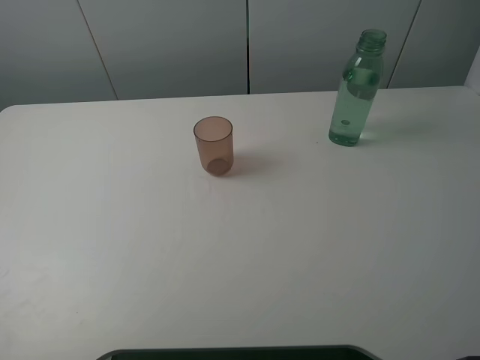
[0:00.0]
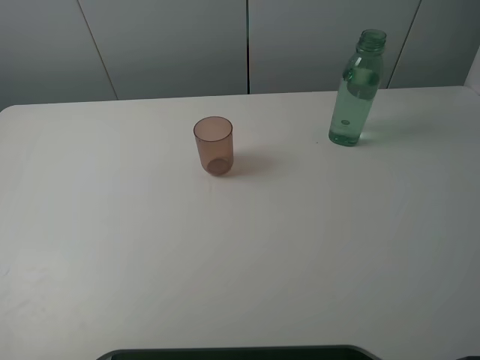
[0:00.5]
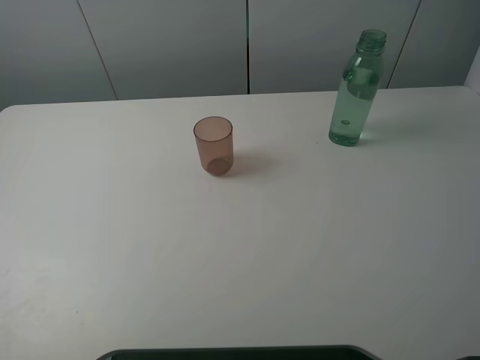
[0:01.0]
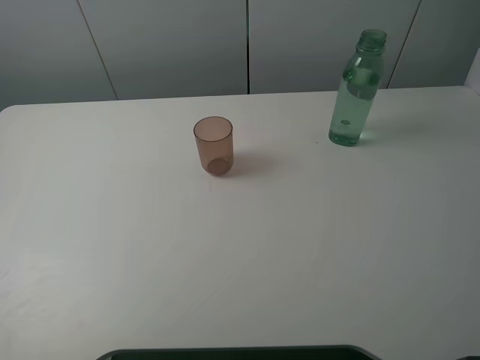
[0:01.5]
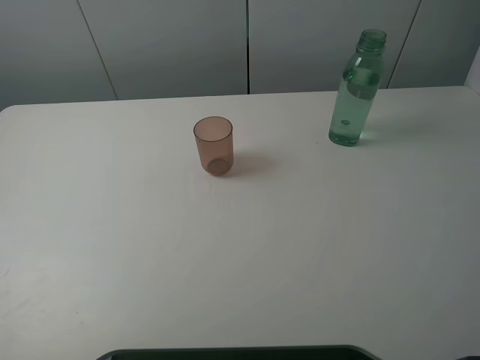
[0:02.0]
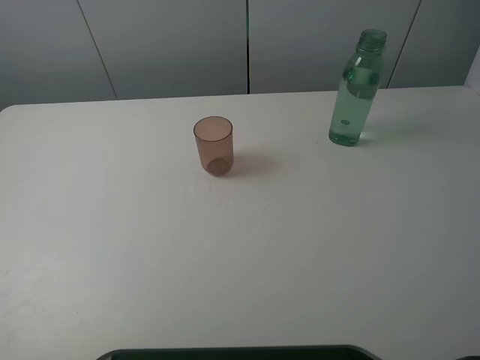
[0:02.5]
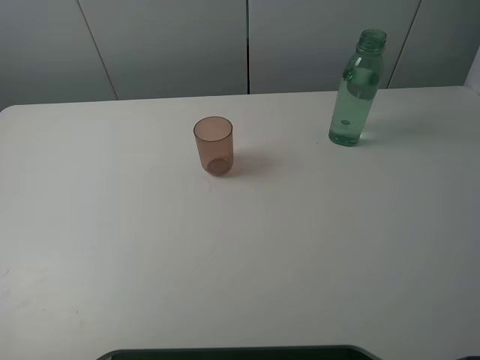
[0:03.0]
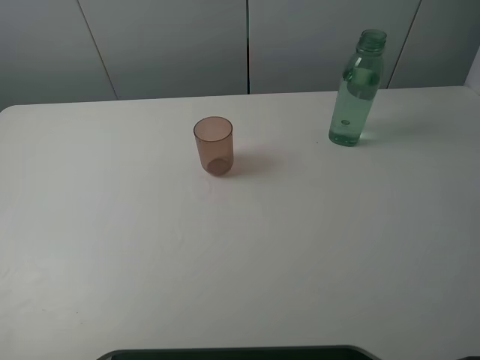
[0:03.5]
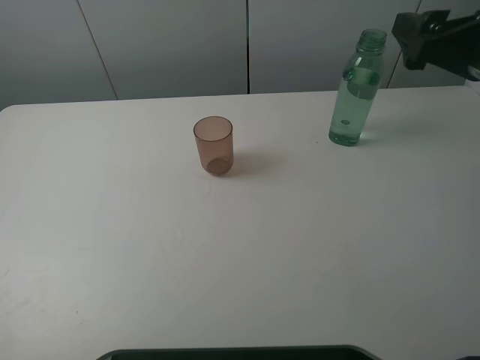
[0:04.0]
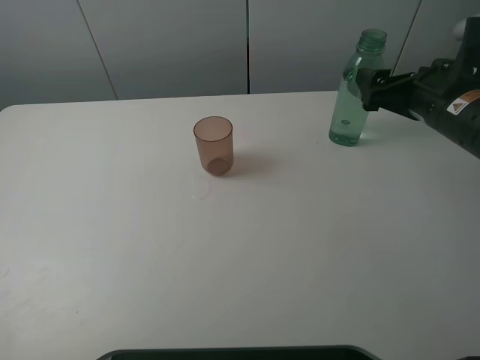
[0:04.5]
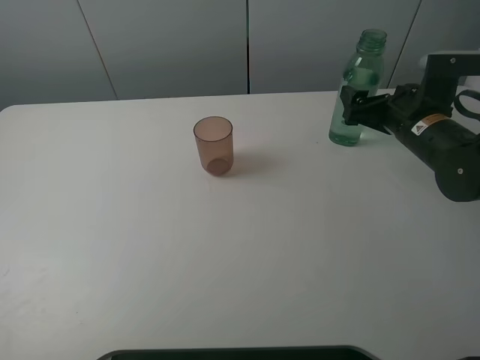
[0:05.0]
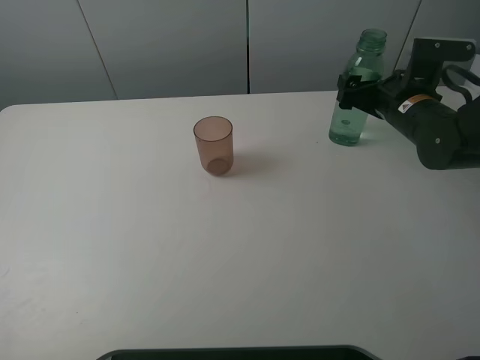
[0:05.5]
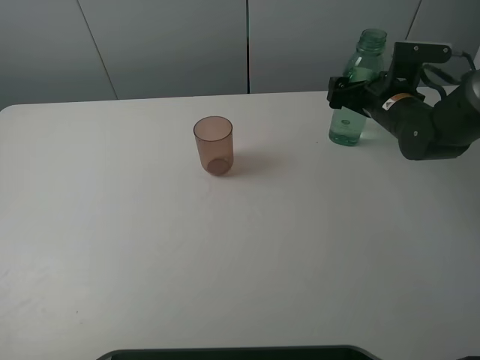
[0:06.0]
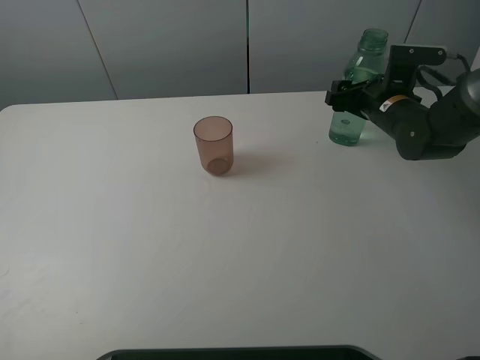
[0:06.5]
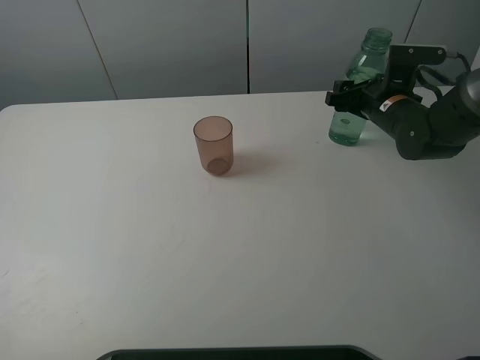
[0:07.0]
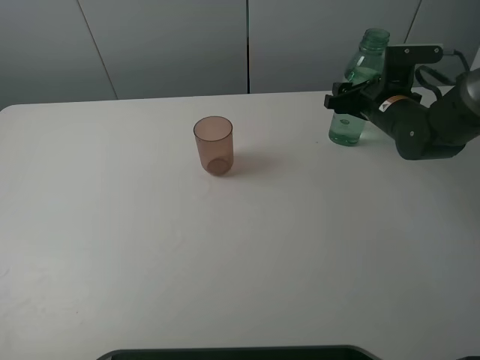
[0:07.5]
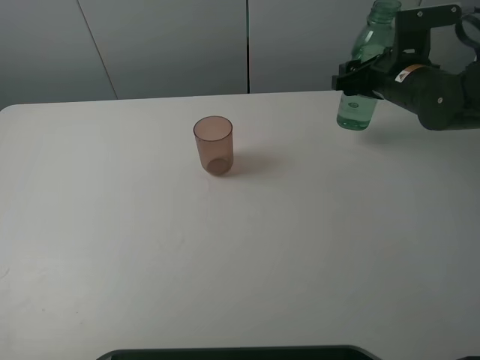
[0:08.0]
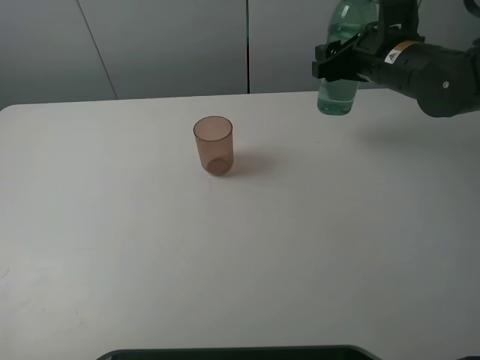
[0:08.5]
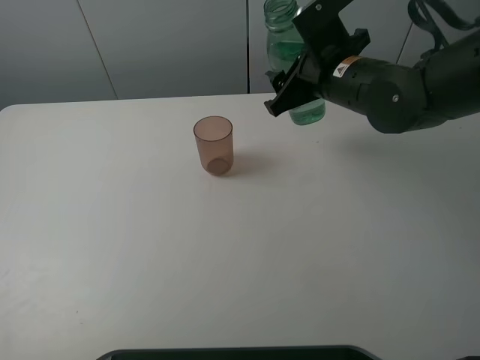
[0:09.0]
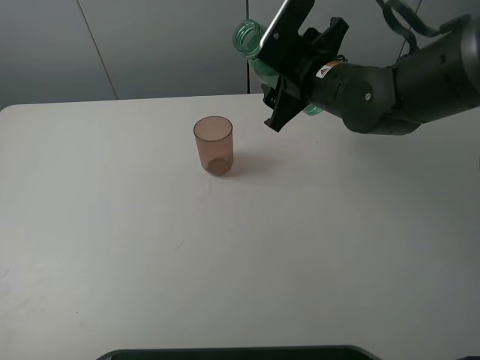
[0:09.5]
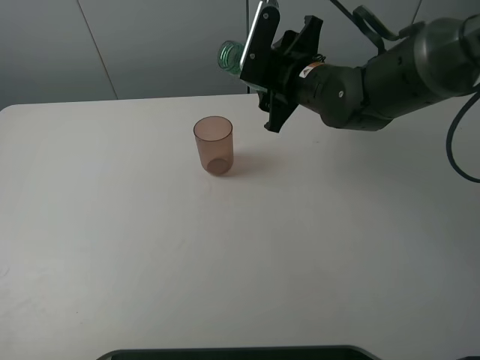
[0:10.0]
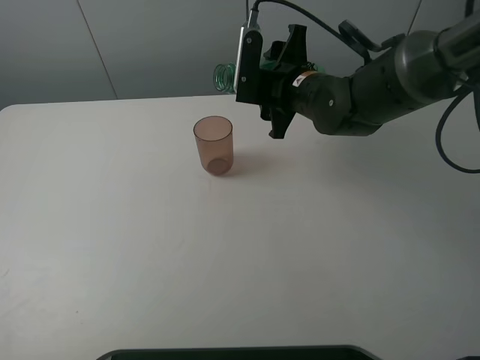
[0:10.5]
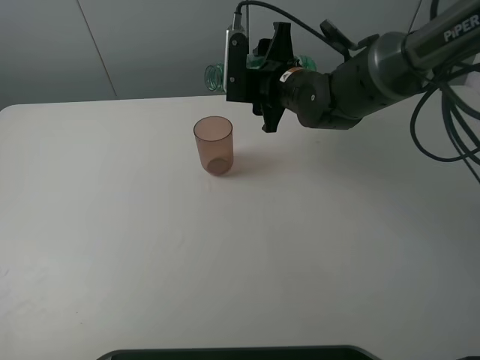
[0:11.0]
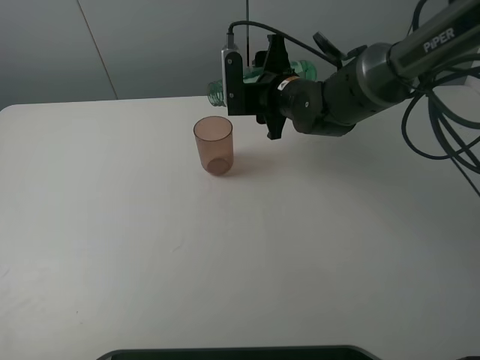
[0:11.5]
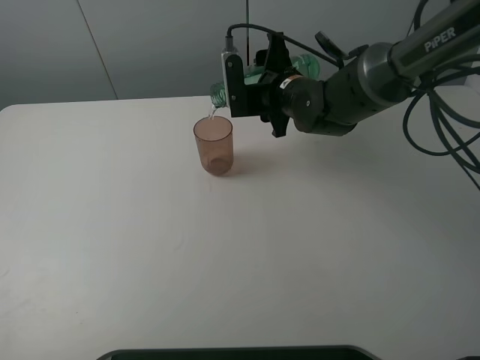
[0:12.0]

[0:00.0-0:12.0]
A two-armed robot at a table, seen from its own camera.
Task of the whole recording: pick up the bottle filled with water and pour it into the pink cup.
Step, 0:00.0 to 0:06.5: Grasp the green bottle with the right gripper.
0:00.0 to 0:02.0: Both grippers stay put.
0:02.0 to 0:04.0: The right gripper moves forward, about 25 cm.
0:04.0 to 0:06.0: The right gripper travels downward and forward by approximately 20 cm.
0:06.0 to 0:08.0: The right gripper travels upward by roughly 5 cm, and closes up.
0:08.0 to 0:10.0: The right gripper heads to the left, covering some 15 cm.

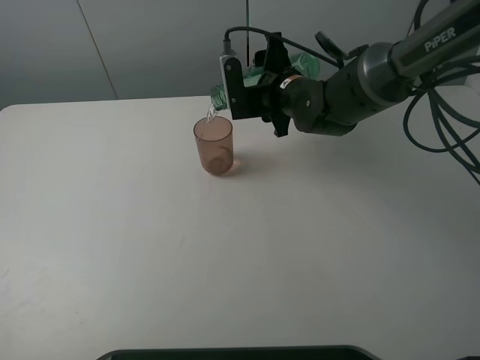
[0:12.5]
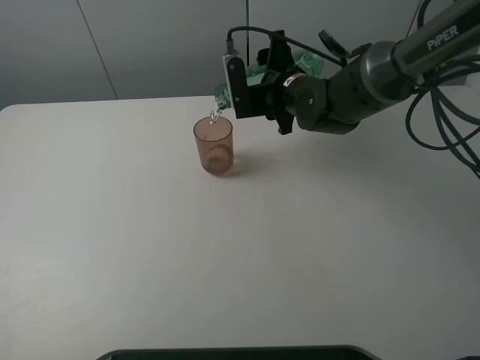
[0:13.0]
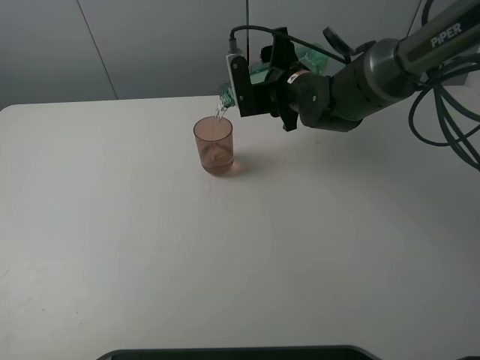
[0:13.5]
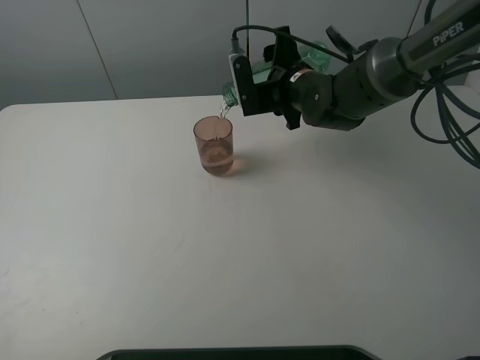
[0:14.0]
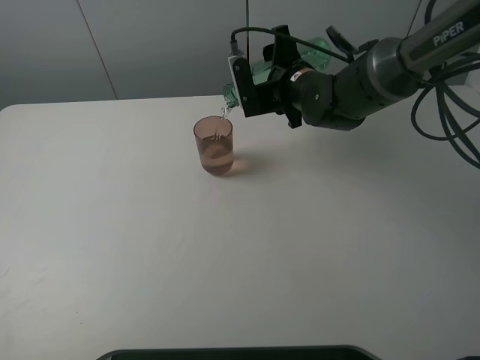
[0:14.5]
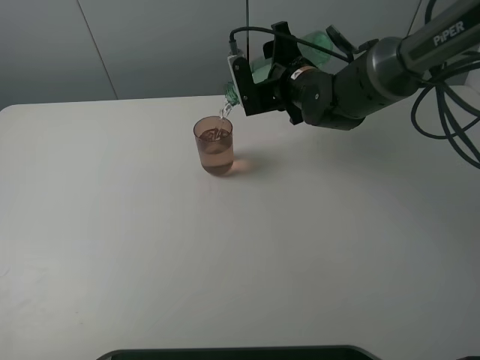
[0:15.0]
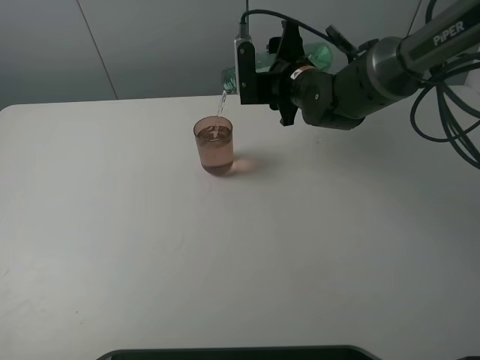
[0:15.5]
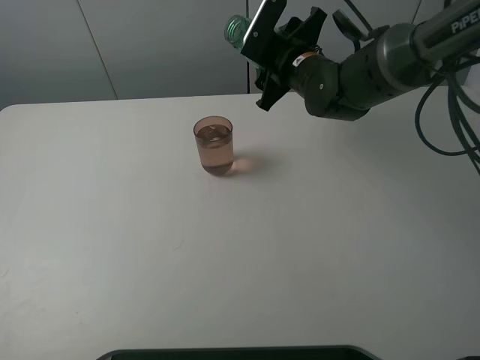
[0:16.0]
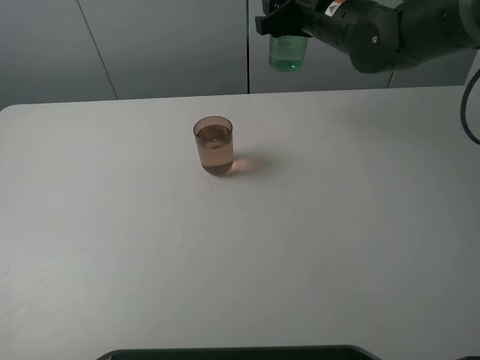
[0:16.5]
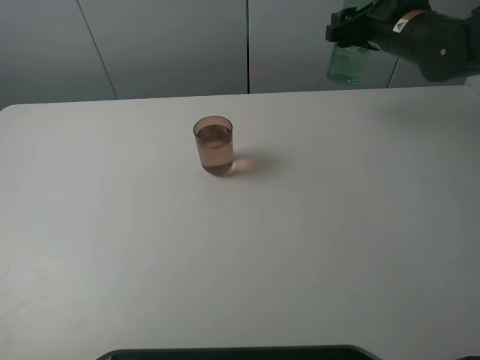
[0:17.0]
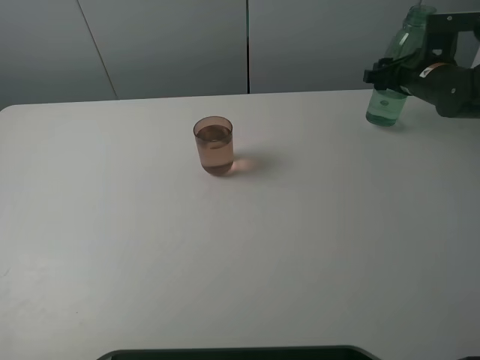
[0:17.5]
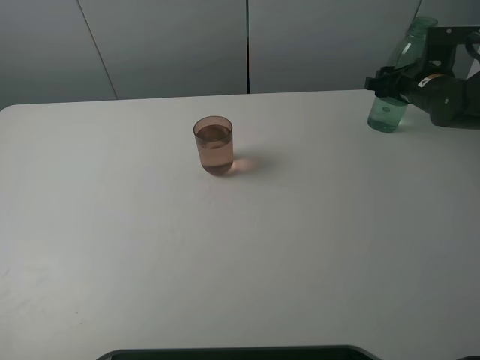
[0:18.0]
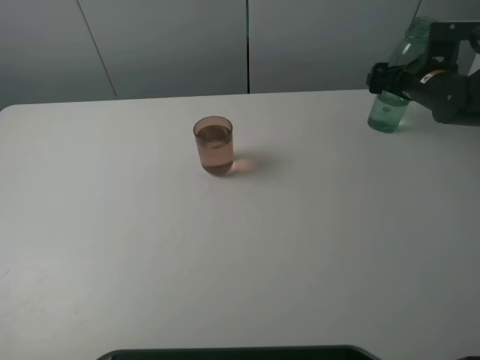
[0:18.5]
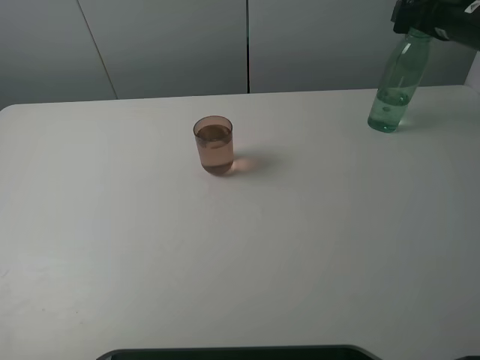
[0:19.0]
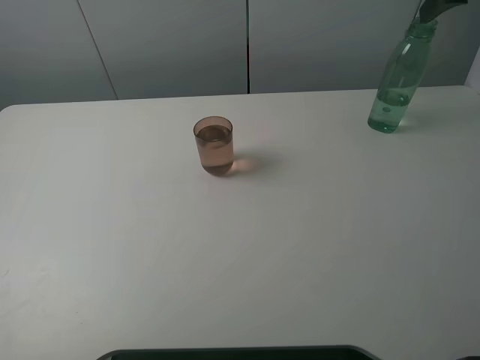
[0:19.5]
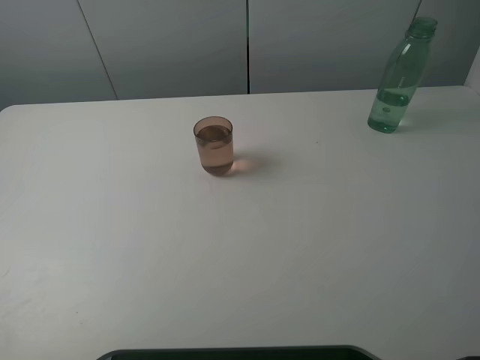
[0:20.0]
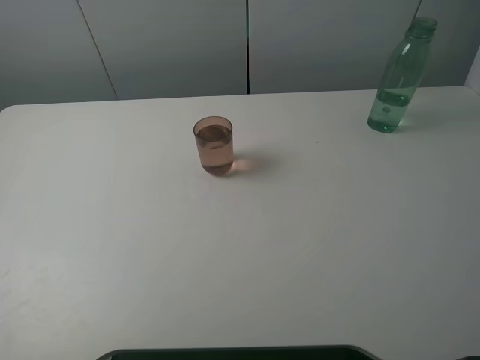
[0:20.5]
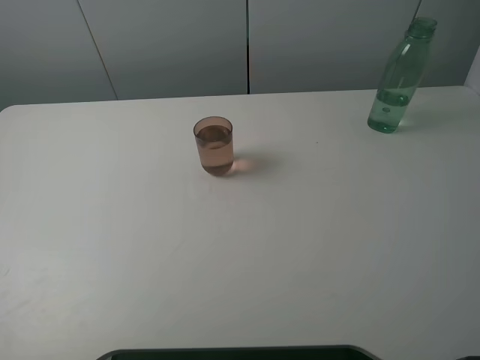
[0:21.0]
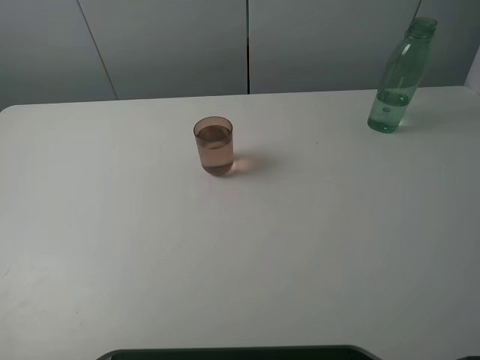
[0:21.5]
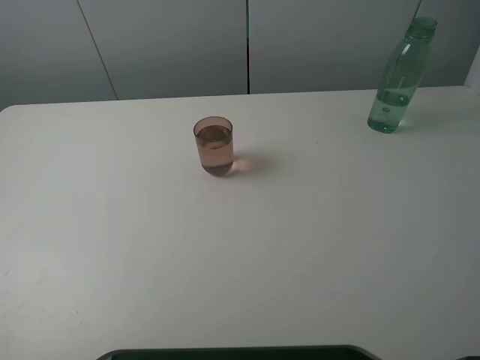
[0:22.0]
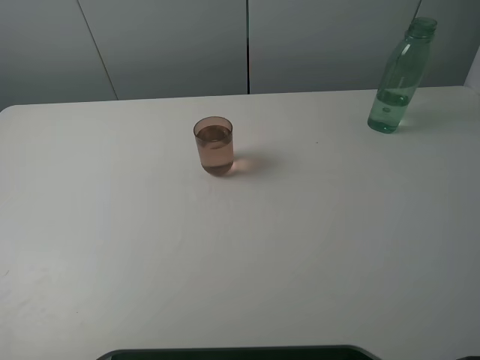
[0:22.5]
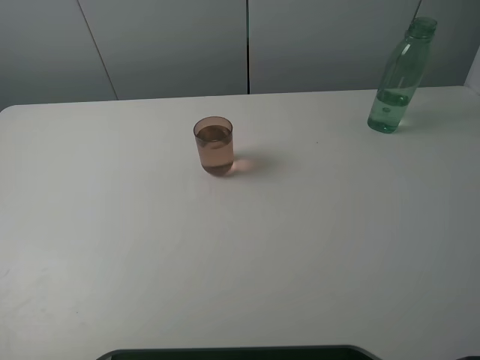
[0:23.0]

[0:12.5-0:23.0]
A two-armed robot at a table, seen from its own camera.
Task of the whole recording: pick up the bottle filled with water and pour it into the pink cup.
Step, 0:12.5 to 0:15.5: Pour water from green bottle to pink cup with the right gripper.
Step, 0:16.0 to 0:18.5: Place the green bottle with the right gripper.
0:12.5 to 0:14.5: The grippers move only a little.
0:14.5 to 0:16.5: The right gripper moves upward, roughly 10 cm.
0:16.5 to 0:19.0: The right gripper goes about 15 cm to the right, and opens.
0:19.0 to 0:21.0: The right gripper moves backward, roughly 40 cm.
0:21.0 to 0:23.0: The two grippers keep their place.
